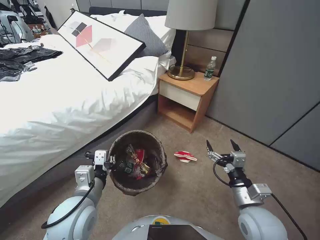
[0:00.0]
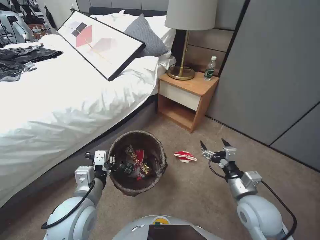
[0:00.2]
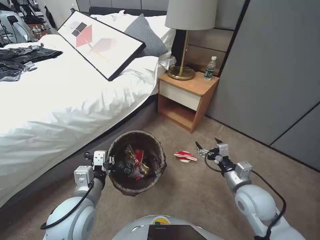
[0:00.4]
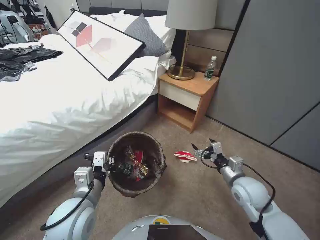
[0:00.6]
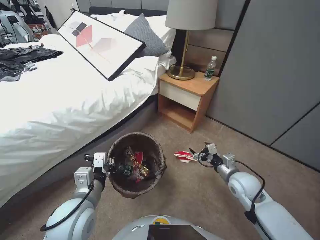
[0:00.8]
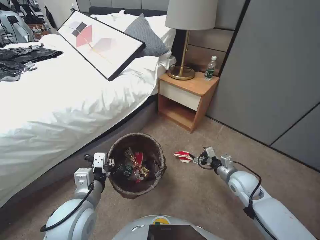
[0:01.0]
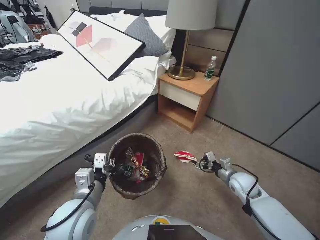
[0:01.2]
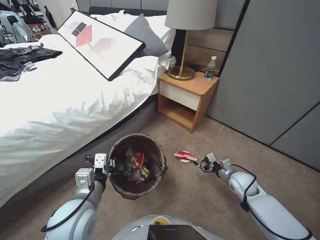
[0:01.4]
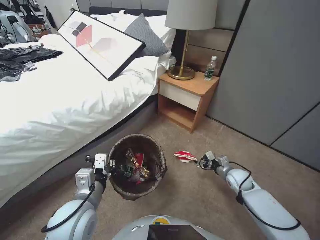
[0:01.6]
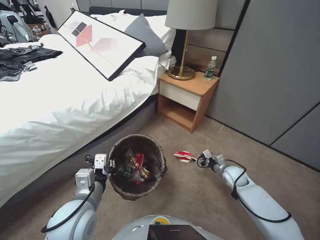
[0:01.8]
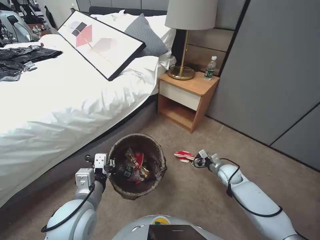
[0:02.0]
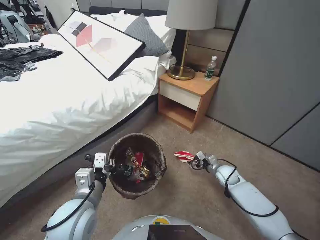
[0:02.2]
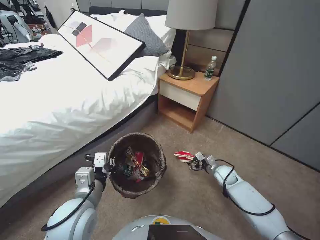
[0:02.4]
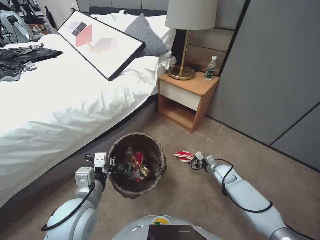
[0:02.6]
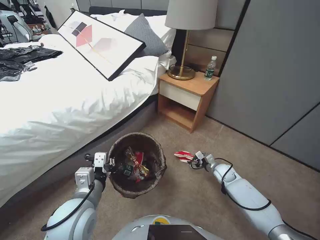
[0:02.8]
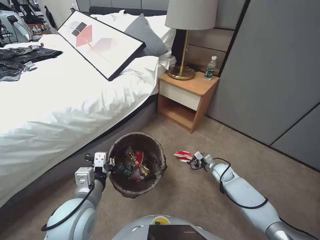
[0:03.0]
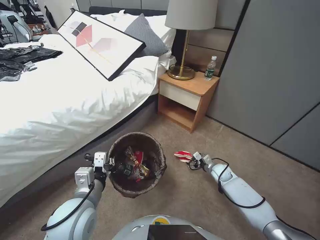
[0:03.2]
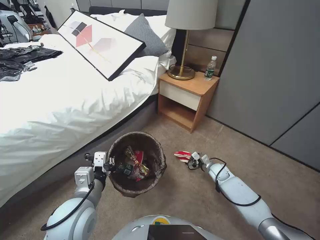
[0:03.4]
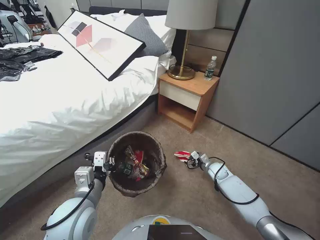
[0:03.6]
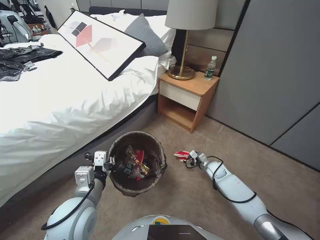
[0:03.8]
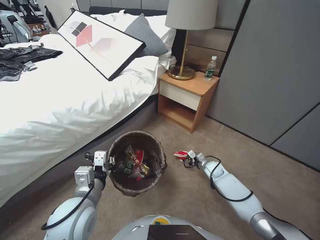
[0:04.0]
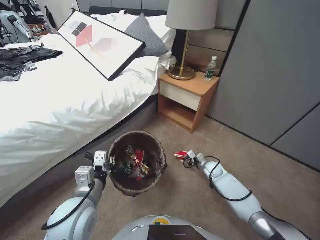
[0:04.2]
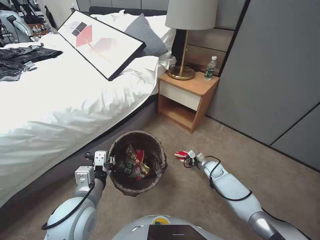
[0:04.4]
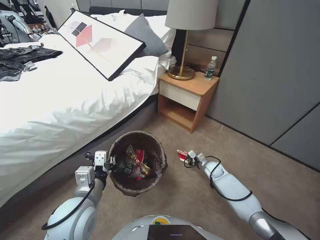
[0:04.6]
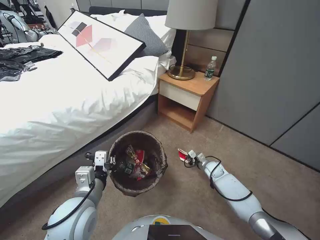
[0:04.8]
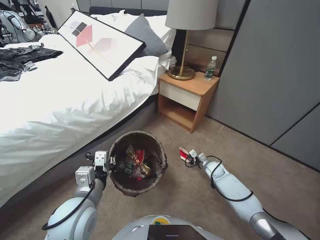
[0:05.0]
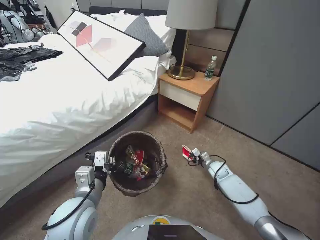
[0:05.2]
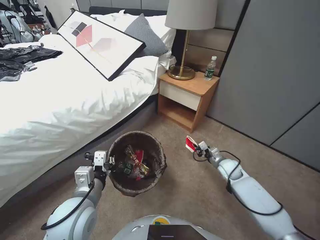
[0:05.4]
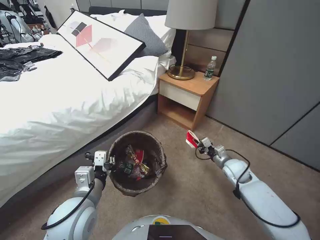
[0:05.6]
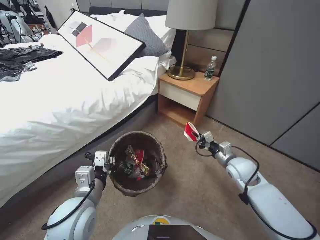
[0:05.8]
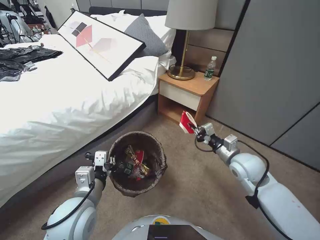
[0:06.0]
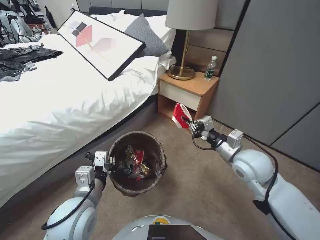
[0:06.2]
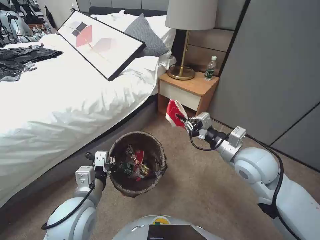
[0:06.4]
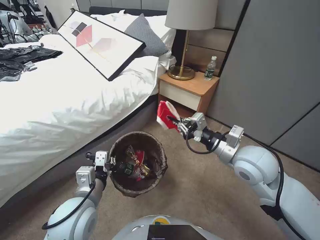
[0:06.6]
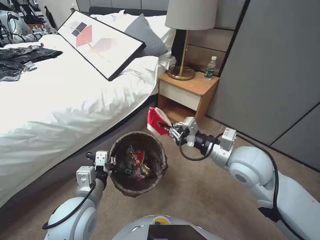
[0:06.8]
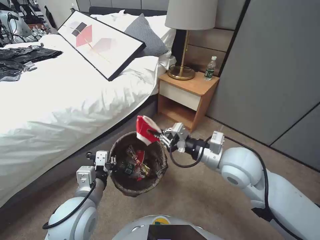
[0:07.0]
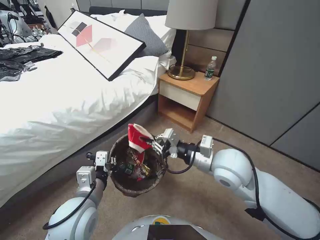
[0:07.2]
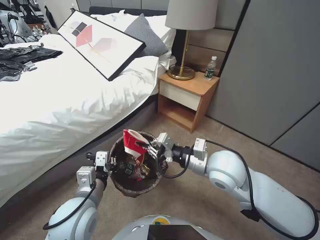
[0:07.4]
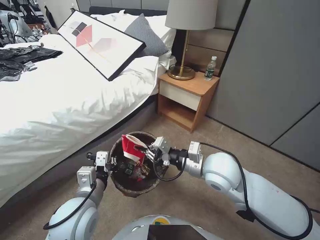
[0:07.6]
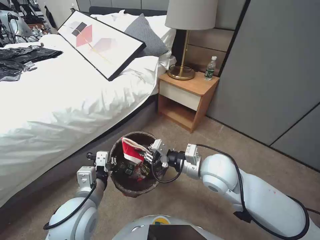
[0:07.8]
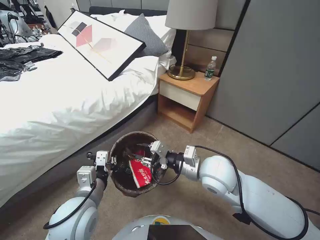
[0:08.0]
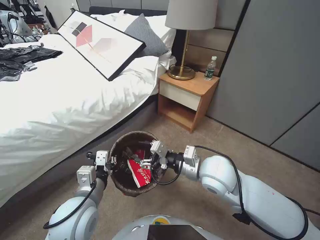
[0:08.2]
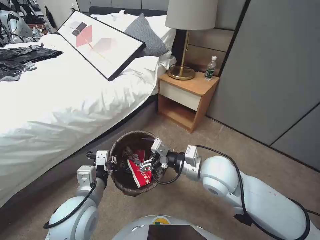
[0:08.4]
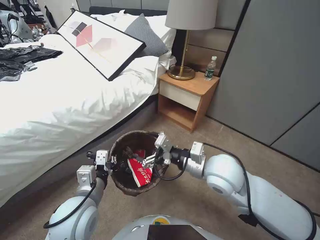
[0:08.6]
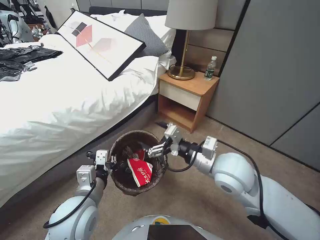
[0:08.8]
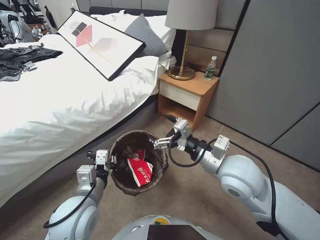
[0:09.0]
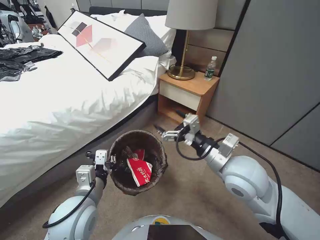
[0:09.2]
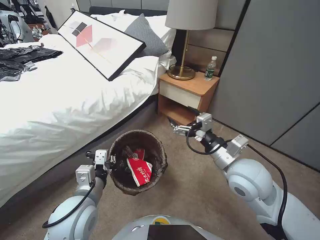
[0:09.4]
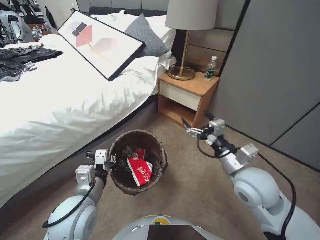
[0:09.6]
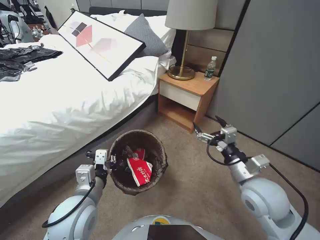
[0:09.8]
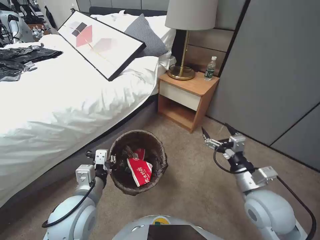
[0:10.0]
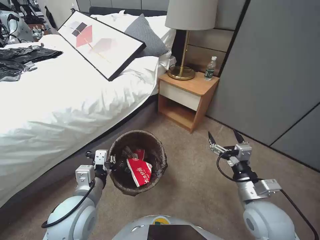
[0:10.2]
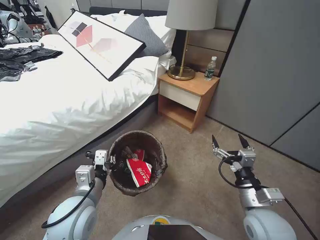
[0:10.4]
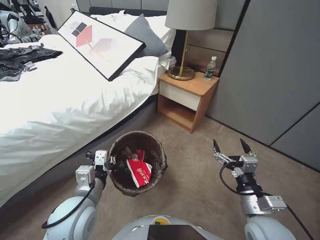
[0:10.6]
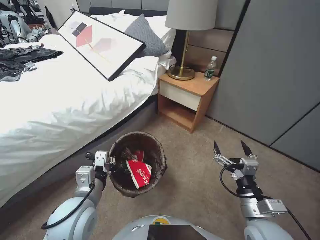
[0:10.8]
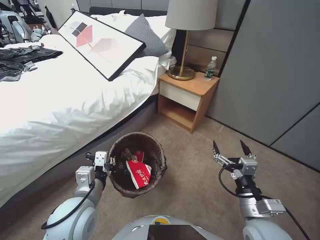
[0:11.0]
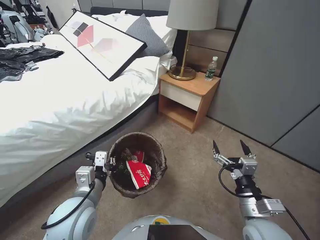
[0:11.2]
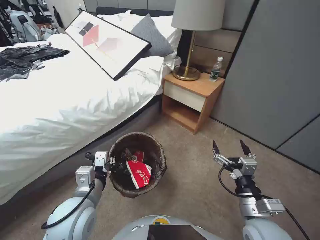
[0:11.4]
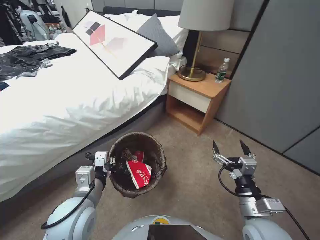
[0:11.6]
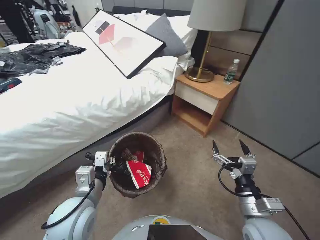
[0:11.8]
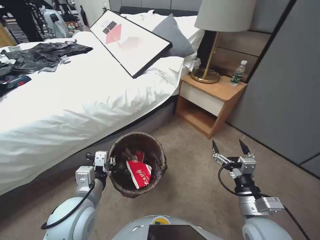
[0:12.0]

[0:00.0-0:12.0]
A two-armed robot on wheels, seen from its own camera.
Task of the whole recording: Pick up the trash bin, then pick up the garbage from the floor and place it into the trash bin.
0:00.0 to 0:01.6: The right gripper heads forward, downward and to the right, covering some 25 cm.
0:01.6 to 0:03.0: The right gripper heads forward and downward, covering about 10 cm.
0:03.0 to 0:04.4: The right gripper moves about 5 cm, and closes its fingers.
0:04.4 to 0:06.0: The right gripper shifts roughly 25 cm upward, and closes its fingers.
0:06.0 to 0:07.6: The right gripper shifts roughly 15 cm to the left and upward.
0:07.6 to 0:09.0: The right gripper opens up.
0:09.0 to 0:10.4: The right gripper shifts approximately 15 cm downward, backward and to the right.

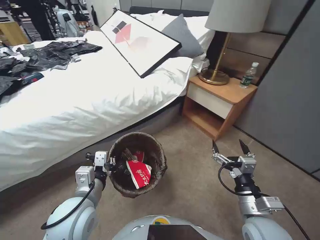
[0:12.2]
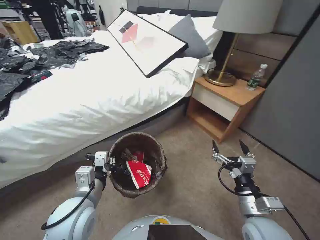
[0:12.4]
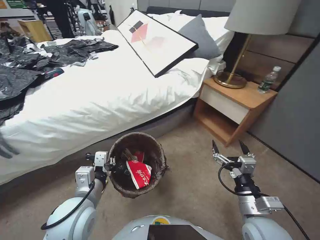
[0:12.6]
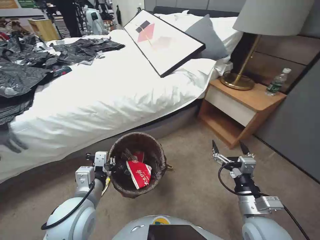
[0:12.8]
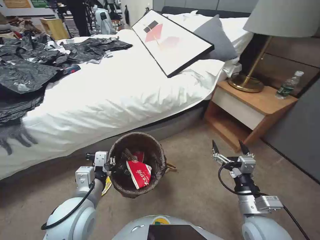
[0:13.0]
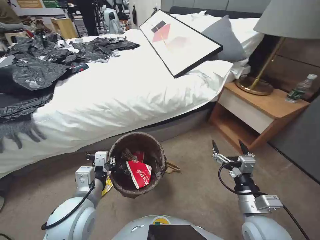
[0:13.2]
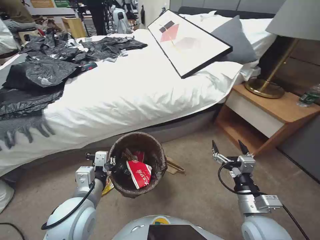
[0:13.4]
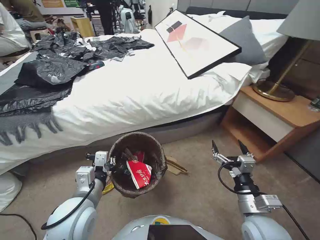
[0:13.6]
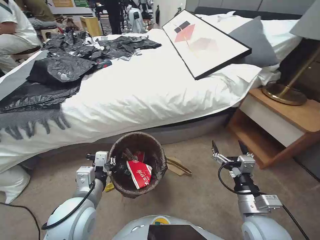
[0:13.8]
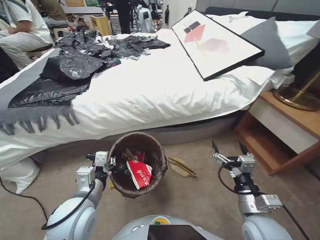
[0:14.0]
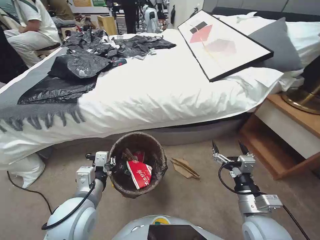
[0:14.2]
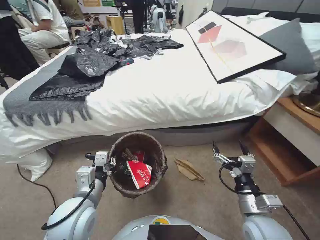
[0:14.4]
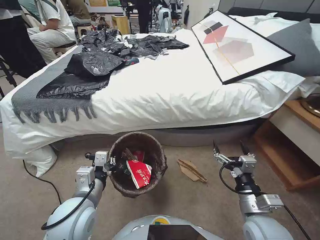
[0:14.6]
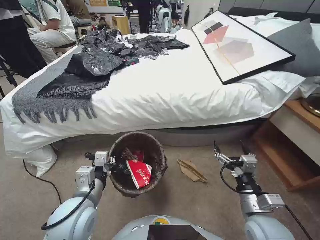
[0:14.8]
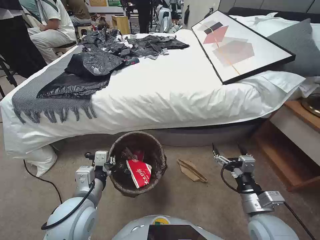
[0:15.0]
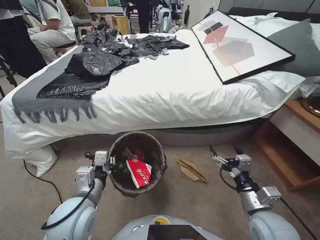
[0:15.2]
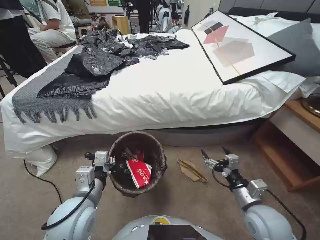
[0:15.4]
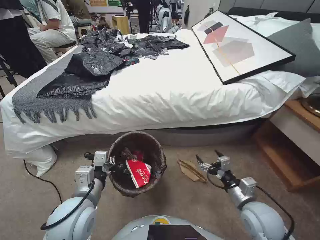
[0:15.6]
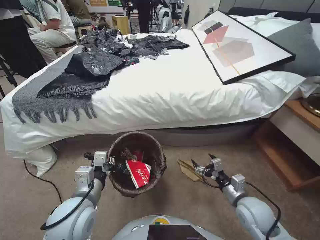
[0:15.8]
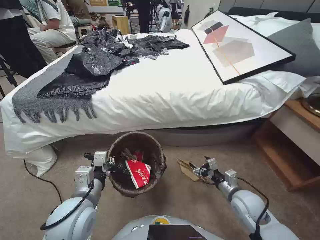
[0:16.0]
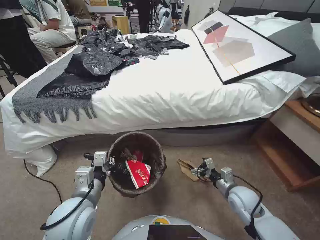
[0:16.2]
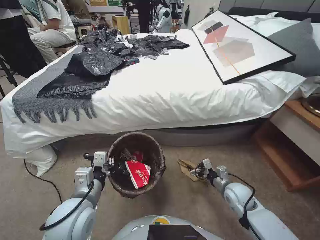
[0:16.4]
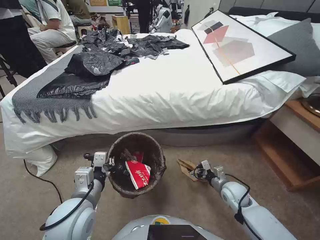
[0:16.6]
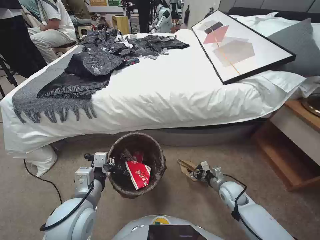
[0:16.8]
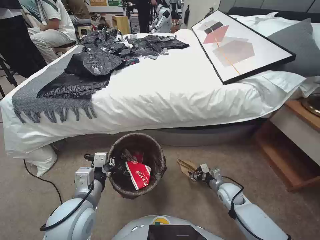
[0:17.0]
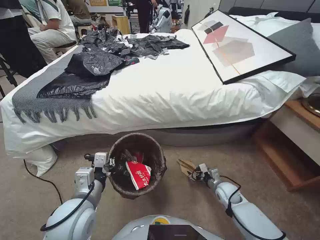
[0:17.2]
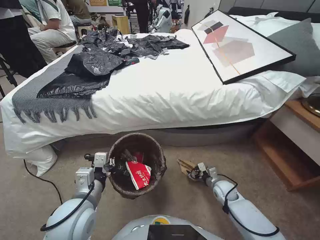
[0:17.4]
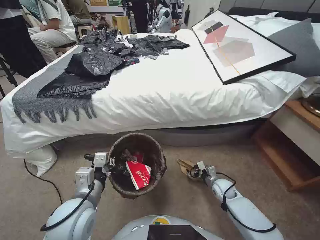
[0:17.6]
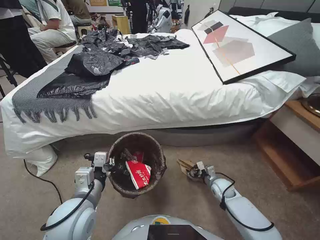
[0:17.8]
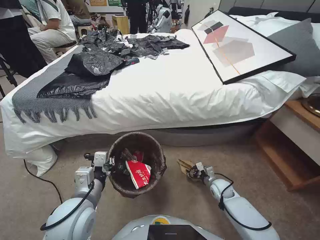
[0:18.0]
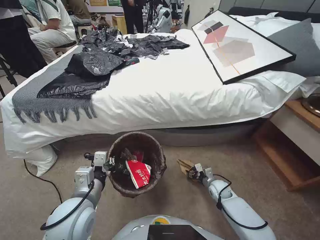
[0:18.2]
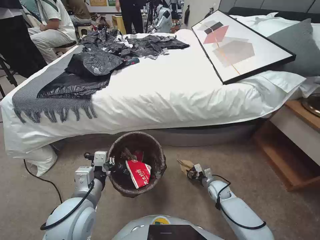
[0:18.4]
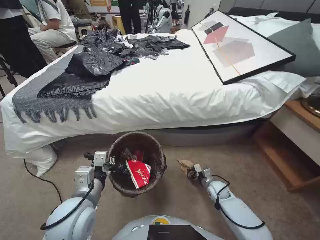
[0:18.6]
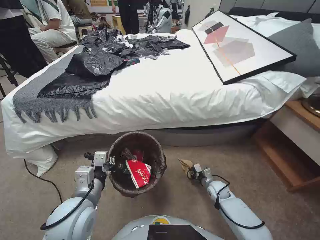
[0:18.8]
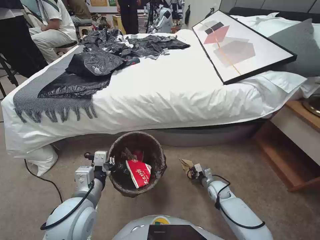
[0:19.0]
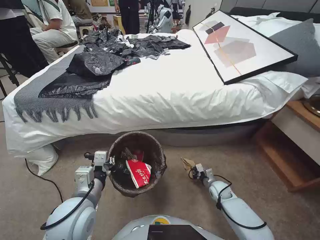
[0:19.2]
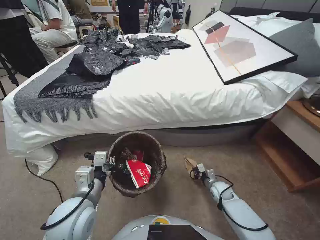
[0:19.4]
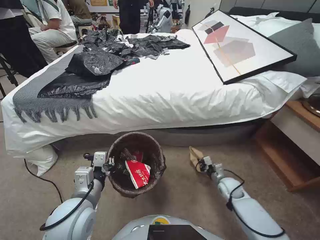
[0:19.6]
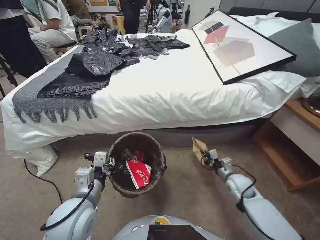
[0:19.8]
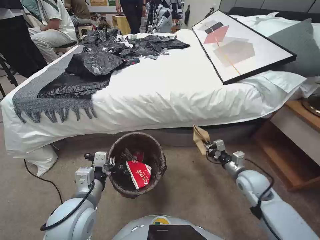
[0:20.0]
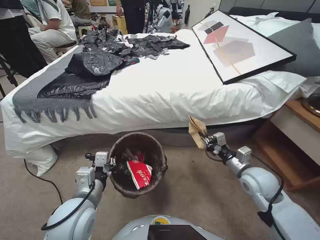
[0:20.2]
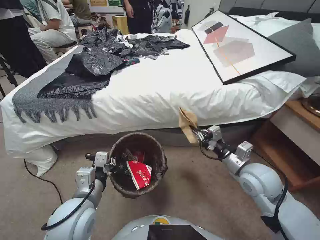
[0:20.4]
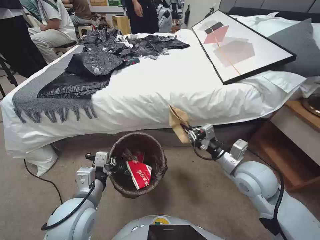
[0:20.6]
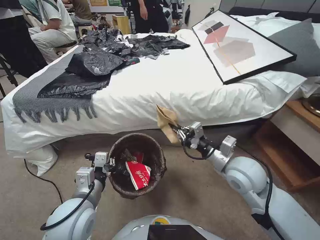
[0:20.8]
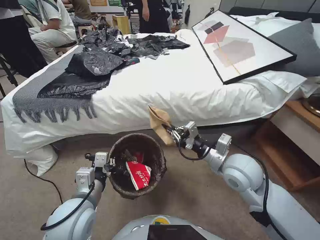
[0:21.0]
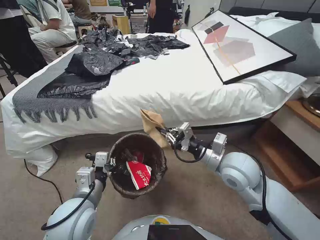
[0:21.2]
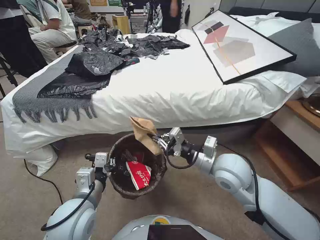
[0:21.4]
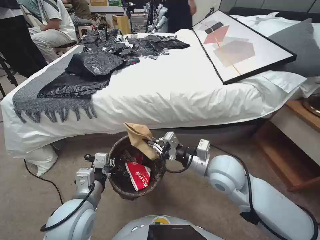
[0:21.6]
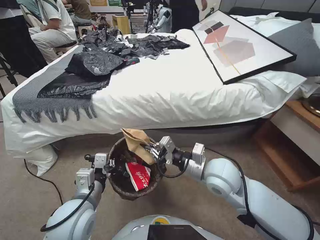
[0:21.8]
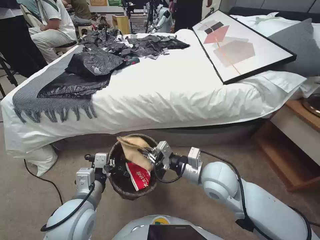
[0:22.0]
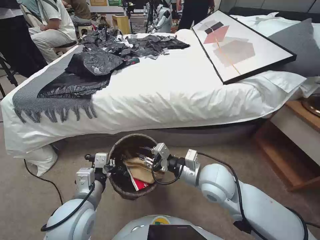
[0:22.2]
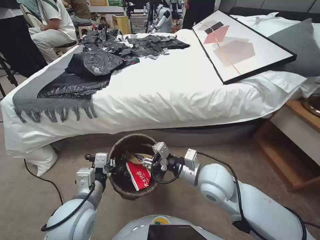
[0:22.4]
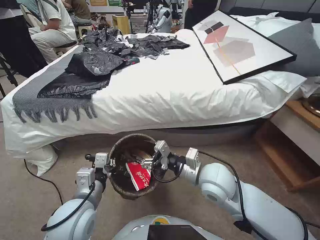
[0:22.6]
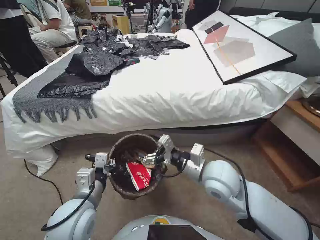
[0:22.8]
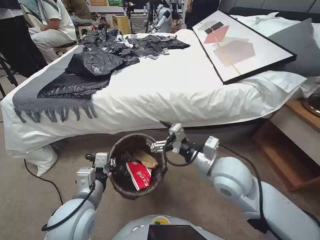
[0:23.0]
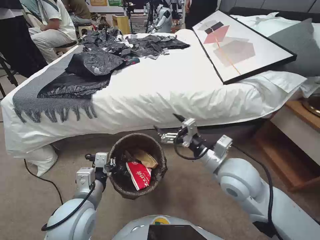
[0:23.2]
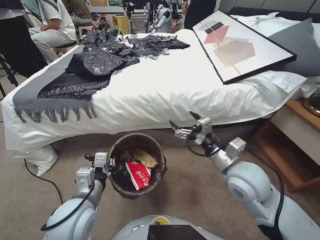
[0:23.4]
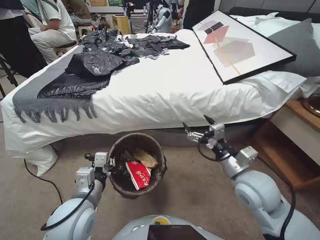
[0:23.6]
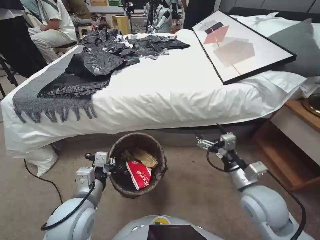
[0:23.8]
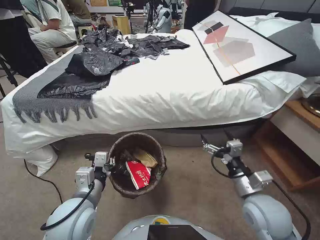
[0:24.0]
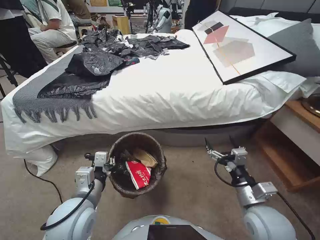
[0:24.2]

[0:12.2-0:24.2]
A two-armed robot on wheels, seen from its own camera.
Task of the whole recording: Pick up the trash bin, then pick up the garbage from the floor and place it into the trash bin.
0:15.2 to 0:16.6: The right gripper heads downward and forward, covering about 20 cm.
0:16.6 to 0:18.2: The right gripper shifts roughly 10 cm downward.
0:18.2 to 0:19.8: The right gripper goes some 10 cm upward, and closes its fingers.
0:19.8 to 0:21.2: The right gripper travels upward and to the left by some 30 cm.
0:21.2 to 0:22.6: The right gripper travels to the left by some 5 cm, and opens its fingers.
0:22.6 to 0:24.2: The right gripper travels to the right and backward by approximately 15 cm, and opens its fingers.
